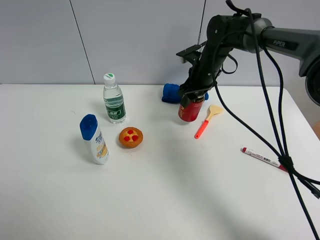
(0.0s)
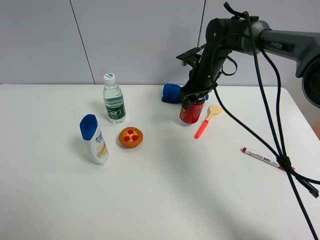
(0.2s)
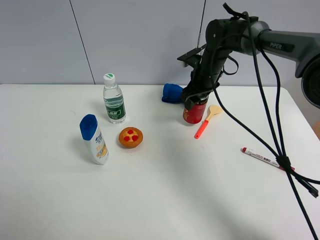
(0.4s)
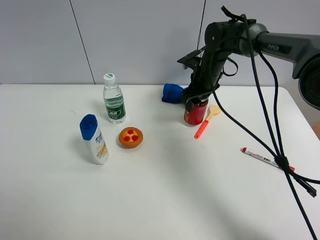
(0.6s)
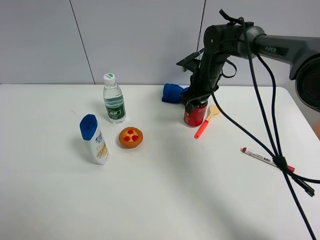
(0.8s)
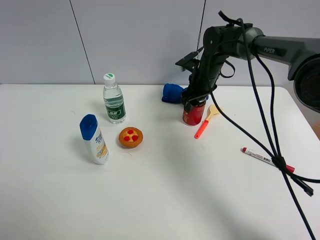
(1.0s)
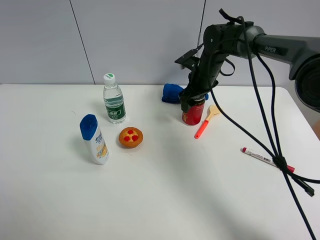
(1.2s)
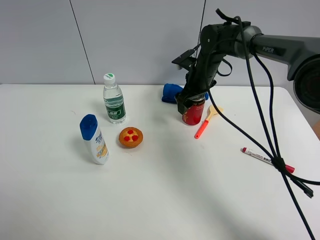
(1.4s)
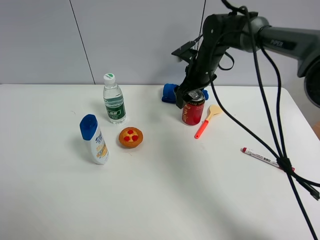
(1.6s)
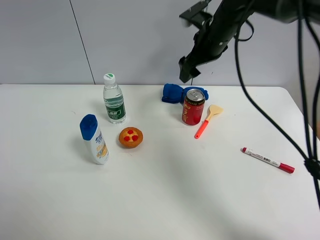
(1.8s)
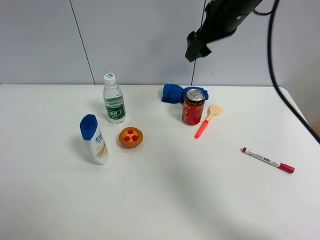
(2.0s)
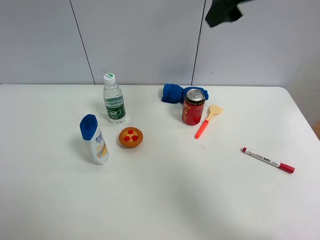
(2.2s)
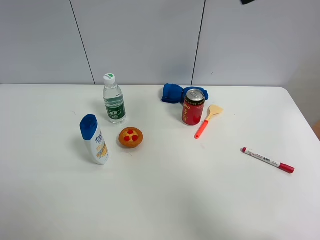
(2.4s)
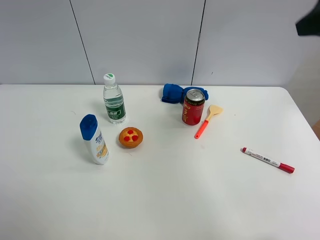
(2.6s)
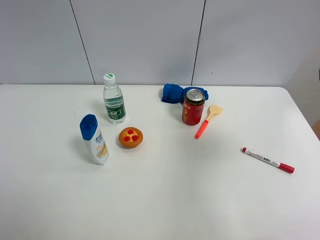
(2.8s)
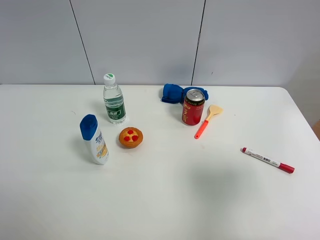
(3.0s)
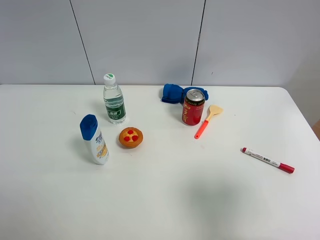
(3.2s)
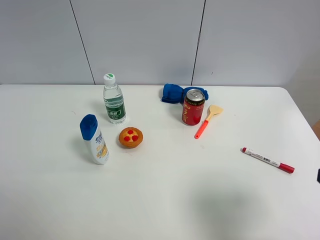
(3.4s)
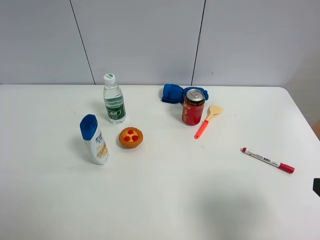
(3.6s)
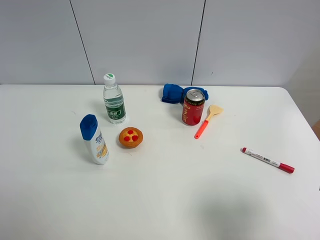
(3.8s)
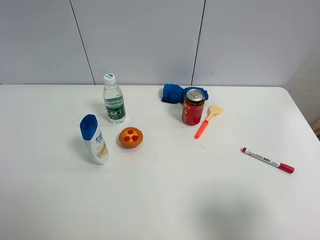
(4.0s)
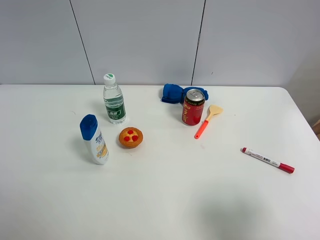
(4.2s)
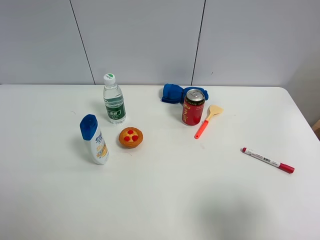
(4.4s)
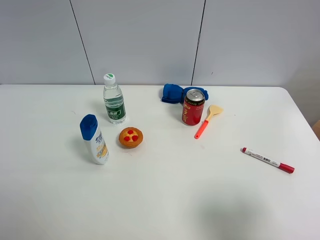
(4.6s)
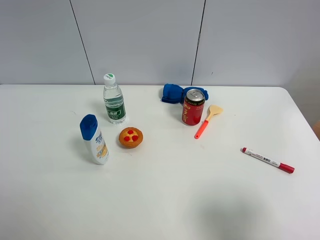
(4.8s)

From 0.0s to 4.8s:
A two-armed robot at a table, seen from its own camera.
Task of the whole recording: the gripper move the object.
From 0.0s to 1.6s: The right gripper opens up.
From 1.6s to 3.2s: The right gripper is displaced backward and to the right by some 40 cm.
From 3.2s to 4.8s: The right gripper shifts by some 5 cm.
